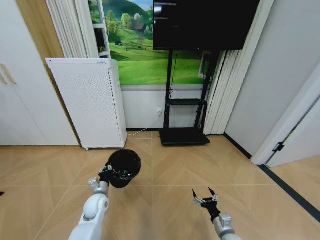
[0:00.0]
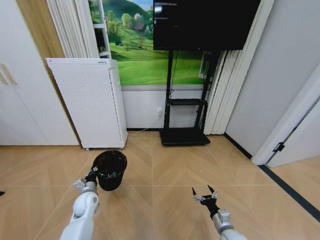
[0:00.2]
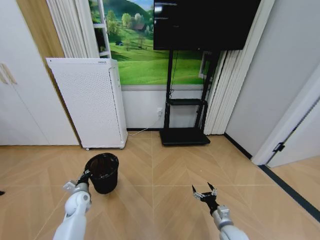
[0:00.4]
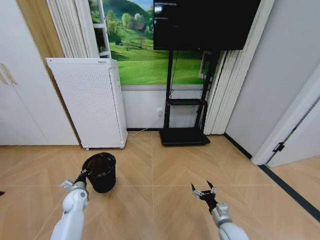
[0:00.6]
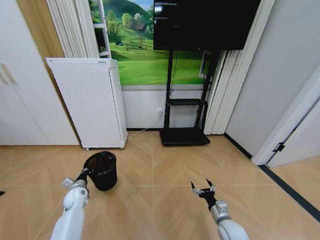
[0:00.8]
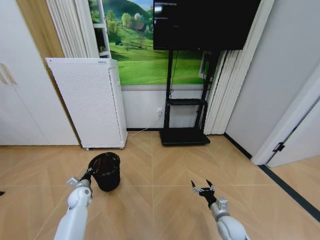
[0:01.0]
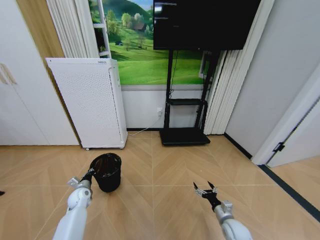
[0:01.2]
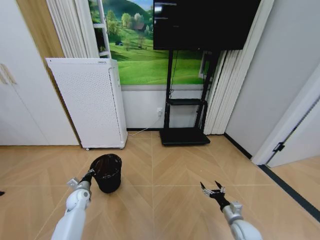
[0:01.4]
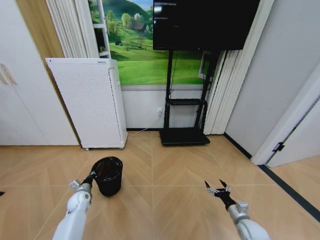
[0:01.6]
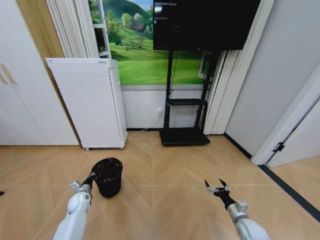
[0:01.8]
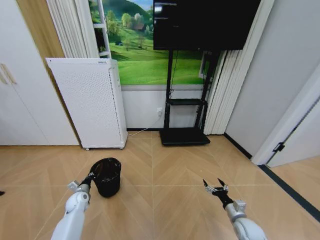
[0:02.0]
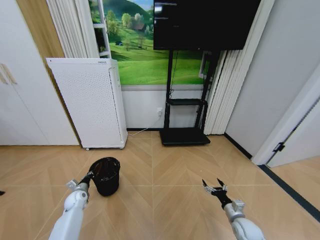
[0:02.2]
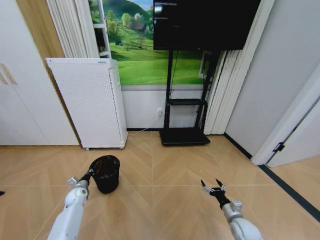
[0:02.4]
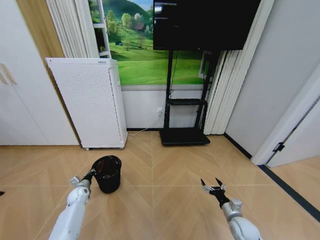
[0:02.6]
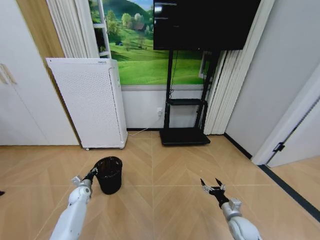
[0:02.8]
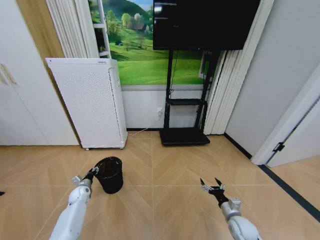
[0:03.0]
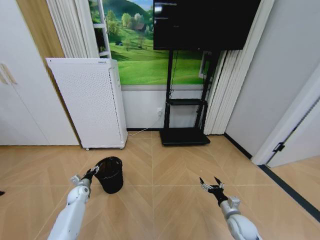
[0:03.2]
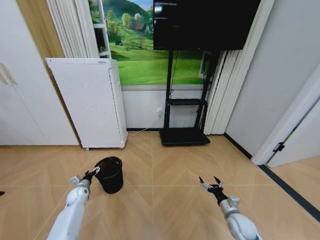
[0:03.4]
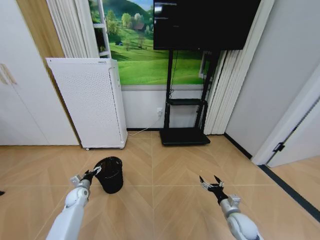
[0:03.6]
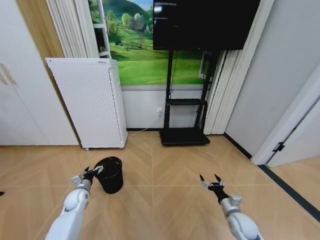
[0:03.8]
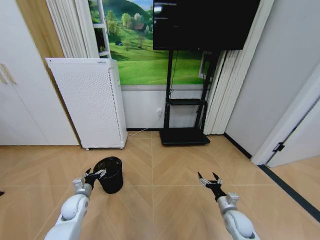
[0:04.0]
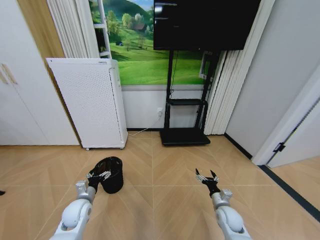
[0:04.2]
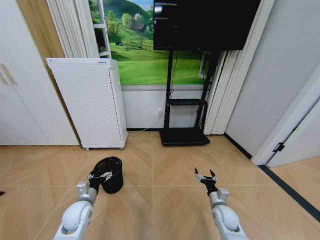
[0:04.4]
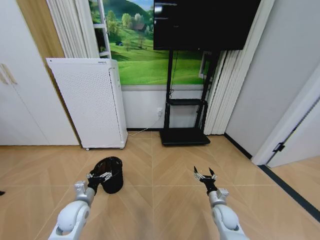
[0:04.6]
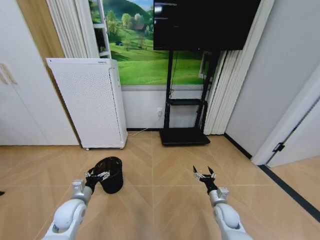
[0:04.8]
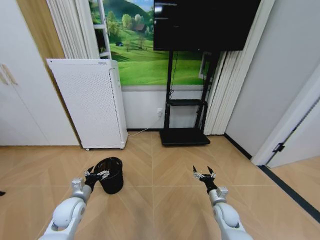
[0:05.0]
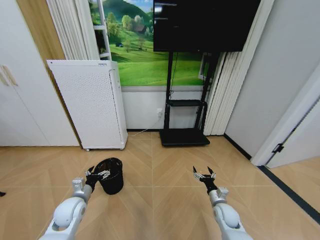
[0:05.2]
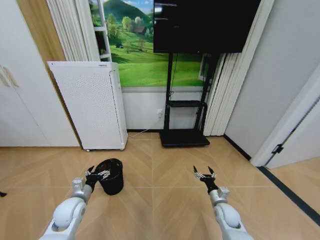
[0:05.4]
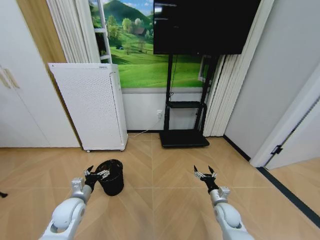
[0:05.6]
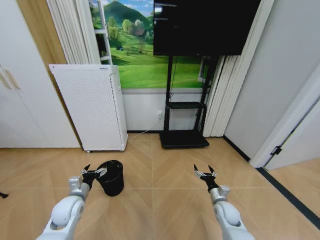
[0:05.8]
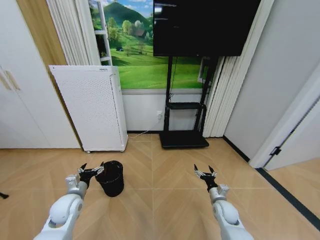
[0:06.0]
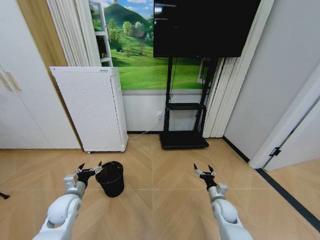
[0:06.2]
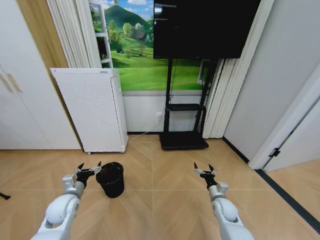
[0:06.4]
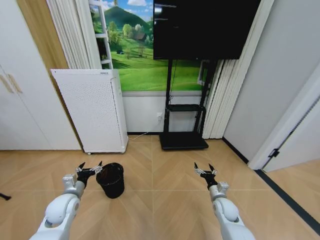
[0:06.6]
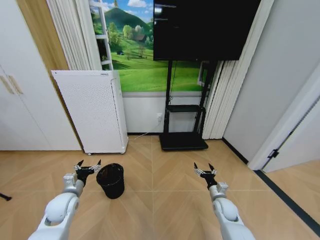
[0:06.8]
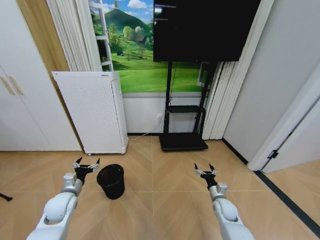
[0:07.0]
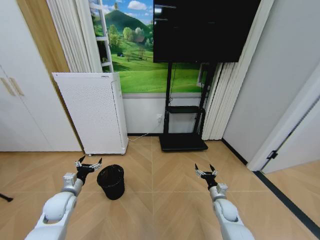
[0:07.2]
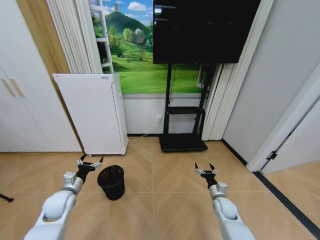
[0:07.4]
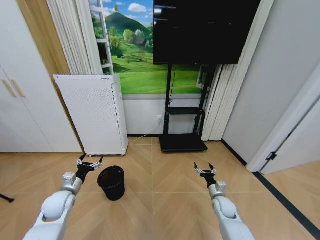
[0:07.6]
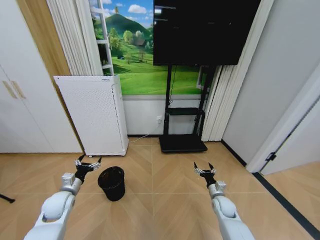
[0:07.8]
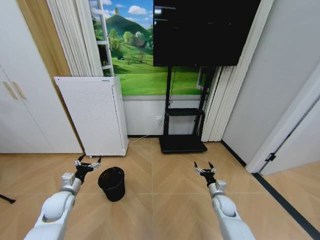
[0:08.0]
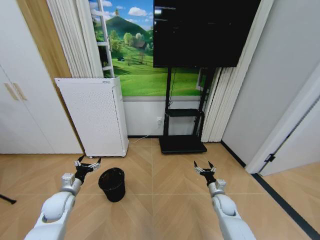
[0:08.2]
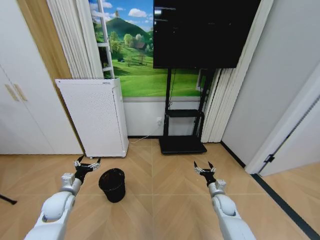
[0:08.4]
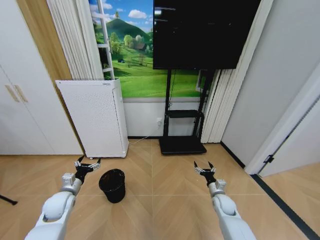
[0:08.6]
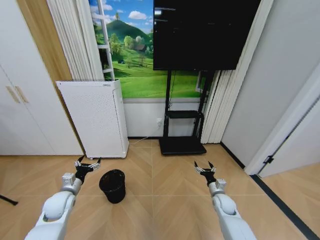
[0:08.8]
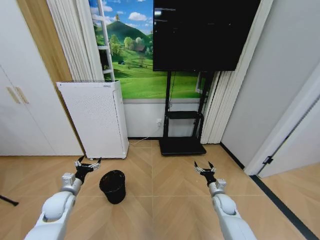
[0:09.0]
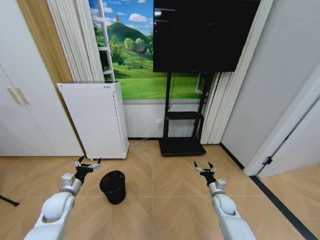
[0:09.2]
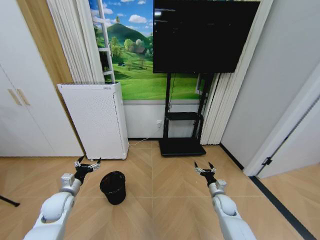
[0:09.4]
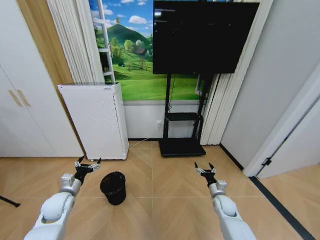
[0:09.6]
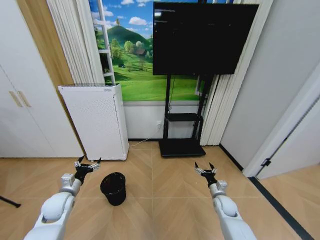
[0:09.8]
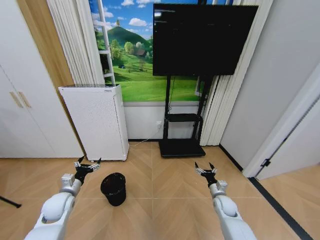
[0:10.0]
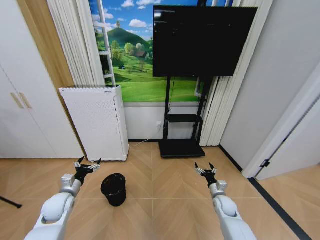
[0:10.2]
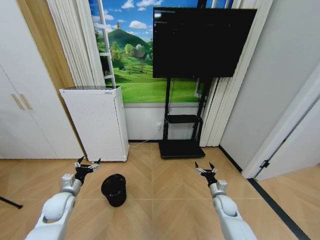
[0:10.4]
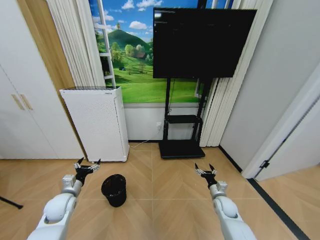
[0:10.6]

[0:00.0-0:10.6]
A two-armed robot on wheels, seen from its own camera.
Task of the whole recording: Pick up the trash bin and place the garbage on the floor into it.
0:00.0 to 0:01.6: The left gripper heads to the left and downward, covering some 15 cm, while the right gripper is displaced to the right by about 10 cm.
0:01.6 to 0:03.0: The left gripper moves some 5 cm, and opens.
0:03.0 to 0:04.6: The left gripper shifts some 20 cm upward, backward and to the right, and opens, while the right gripper travels to the left by approximately 5 cm.
0:04.6 to 0:06.0: The grippers stay close to where they were, moving slightly.
0:06.0 to 0:09.0: The grippers move only a little.
0:09.0 to 0:10.6: Neither gripper changes place.

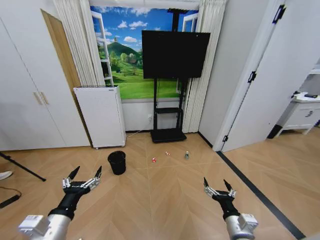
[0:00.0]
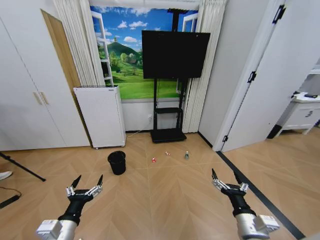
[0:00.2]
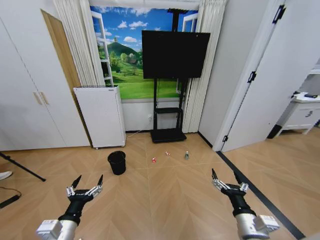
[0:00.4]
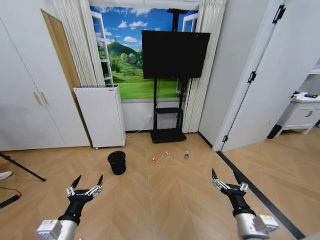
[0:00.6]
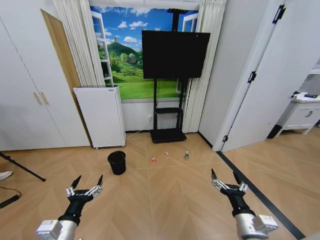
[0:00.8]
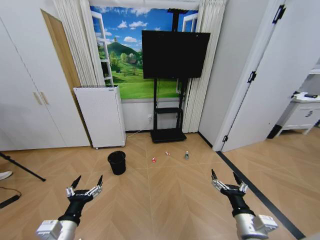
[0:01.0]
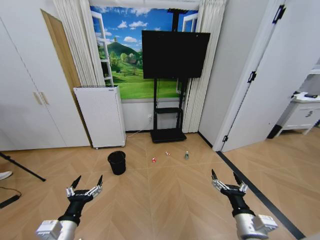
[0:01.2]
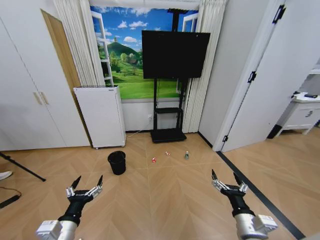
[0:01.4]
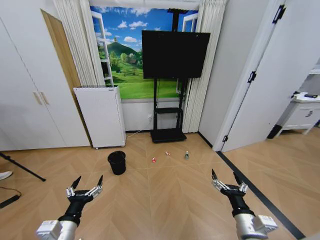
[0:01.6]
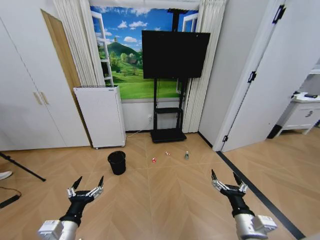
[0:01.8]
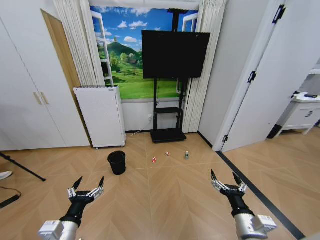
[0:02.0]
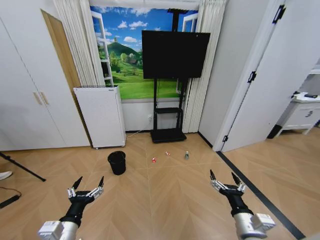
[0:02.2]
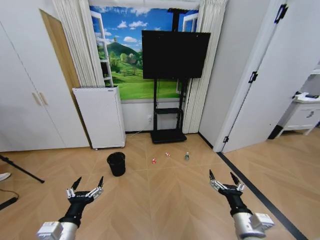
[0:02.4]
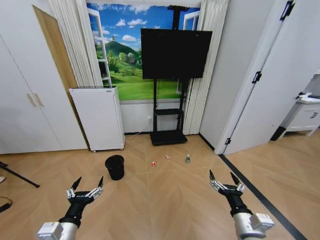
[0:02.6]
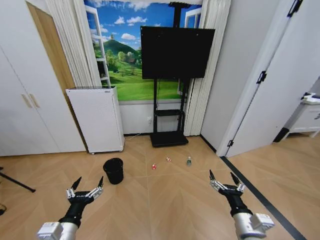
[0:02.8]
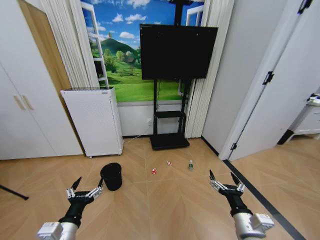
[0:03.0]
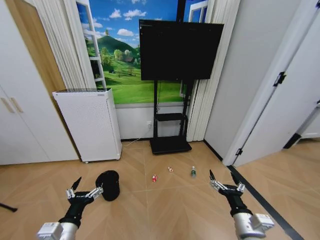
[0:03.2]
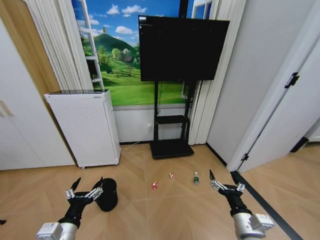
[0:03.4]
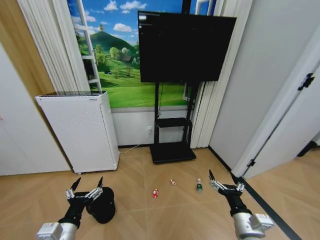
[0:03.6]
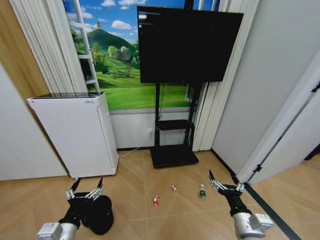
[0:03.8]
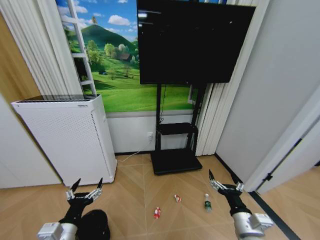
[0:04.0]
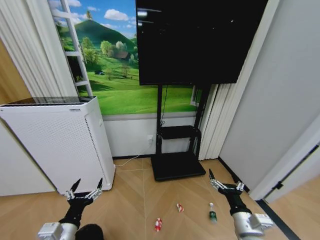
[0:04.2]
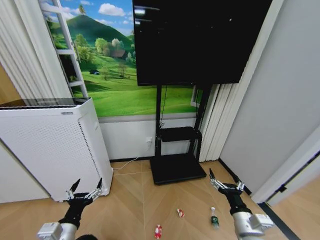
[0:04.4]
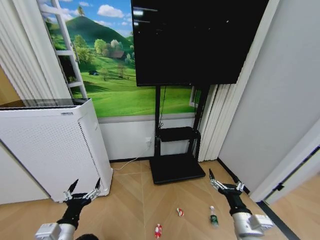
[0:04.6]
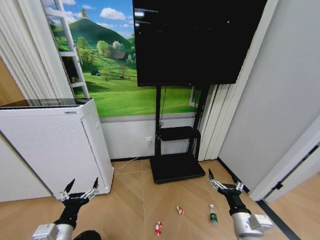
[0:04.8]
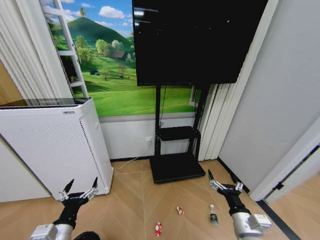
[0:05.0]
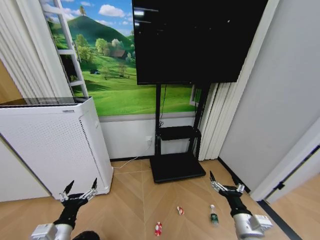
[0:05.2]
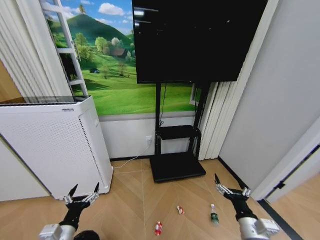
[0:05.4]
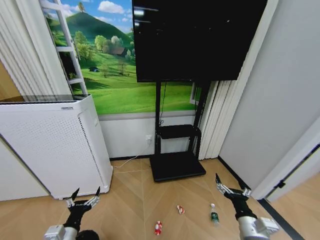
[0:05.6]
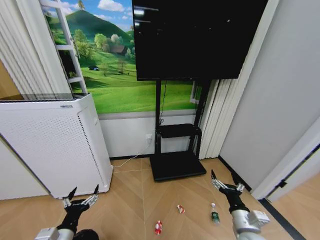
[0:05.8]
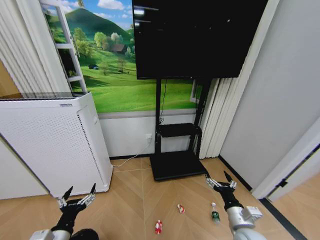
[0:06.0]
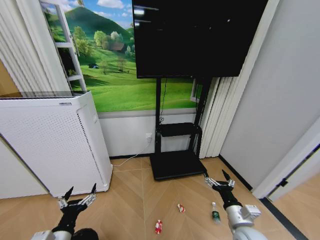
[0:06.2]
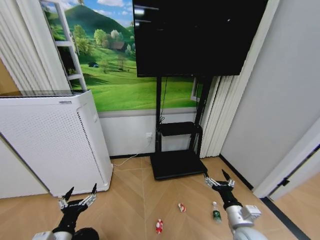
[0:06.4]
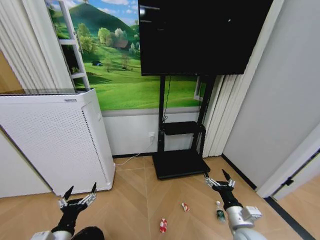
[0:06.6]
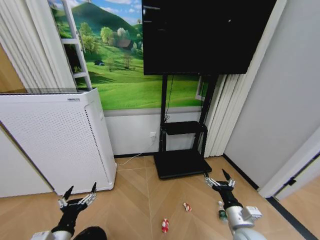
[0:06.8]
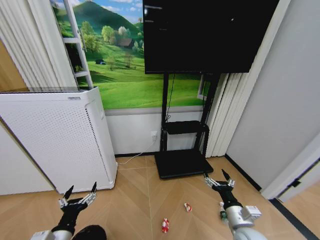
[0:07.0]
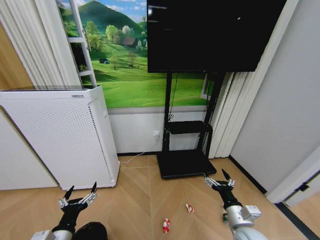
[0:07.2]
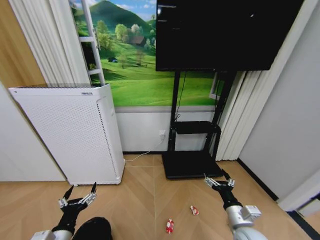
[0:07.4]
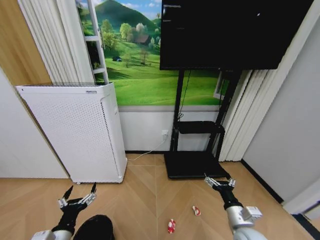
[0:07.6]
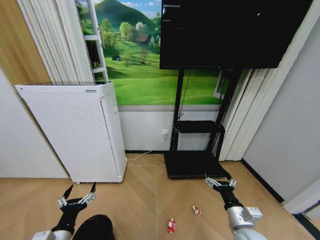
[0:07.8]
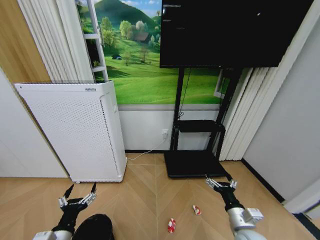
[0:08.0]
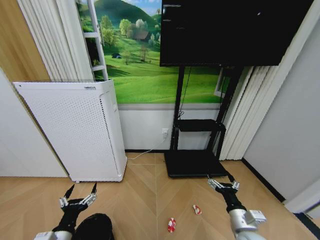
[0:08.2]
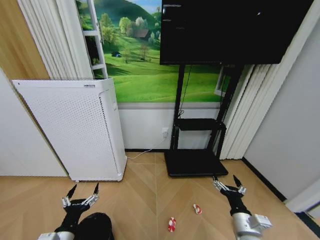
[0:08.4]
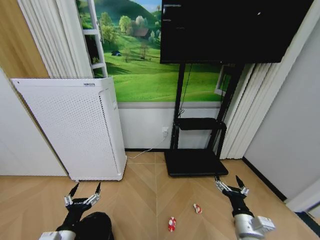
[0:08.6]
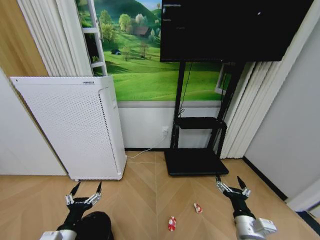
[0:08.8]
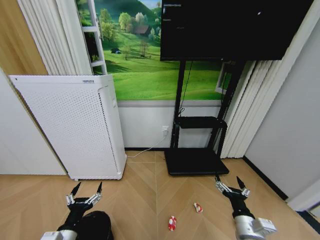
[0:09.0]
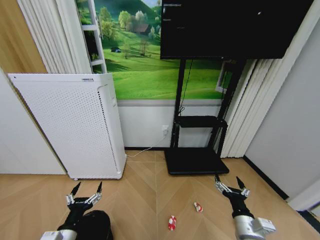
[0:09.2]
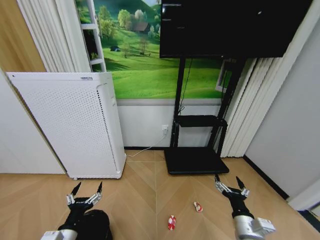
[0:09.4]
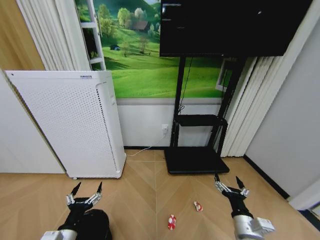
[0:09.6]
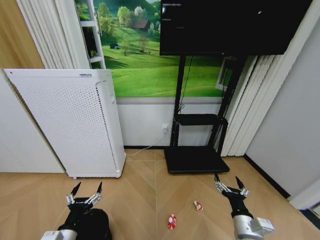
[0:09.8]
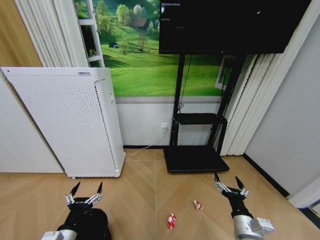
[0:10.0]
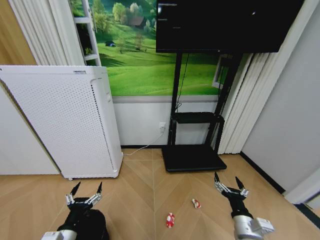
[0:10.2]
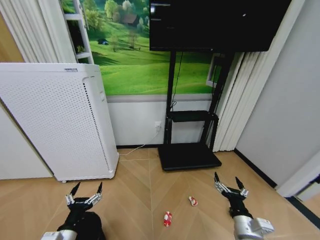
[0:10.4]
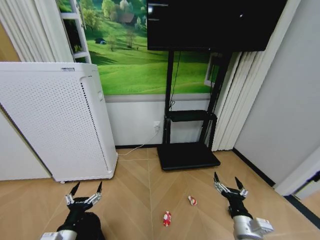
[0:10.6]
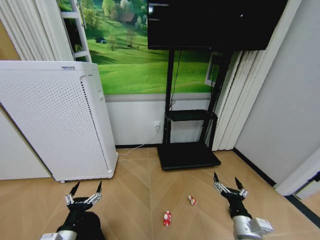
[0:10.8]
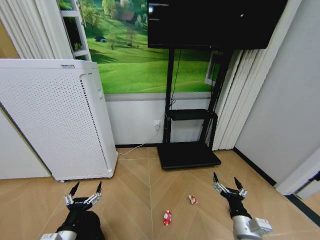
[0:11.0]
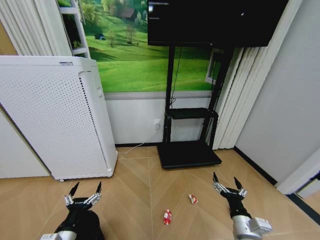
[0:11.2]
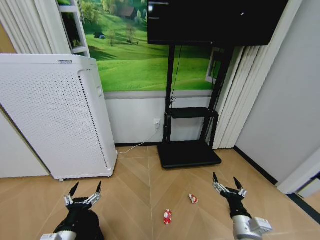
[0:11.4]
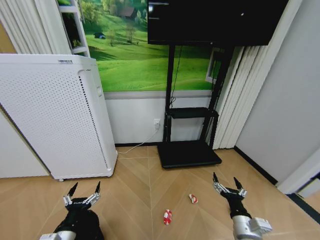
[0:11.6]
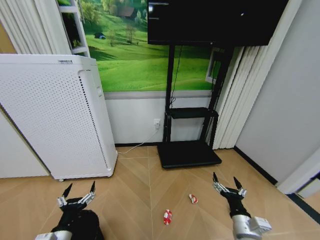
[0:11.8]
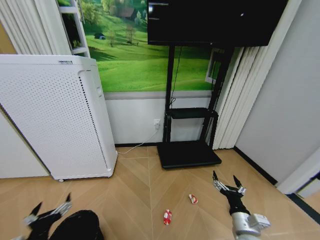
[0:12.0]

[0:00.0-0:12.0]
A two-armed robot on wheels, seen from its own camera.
Task of the whole recording: Pick up the trash bin and place the garbage on the floor into it.
0:07.6 to 0:09.0: The grippers move only a little.
0:10.4 to 0:12.0: The left gripper shifts by about 5 cm.
